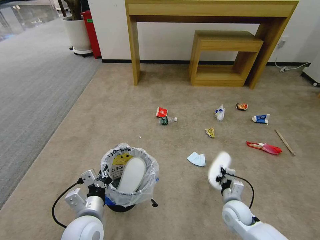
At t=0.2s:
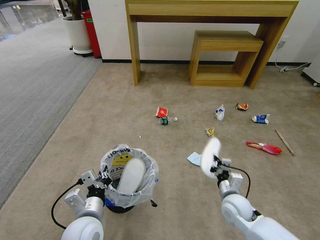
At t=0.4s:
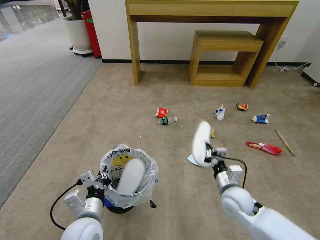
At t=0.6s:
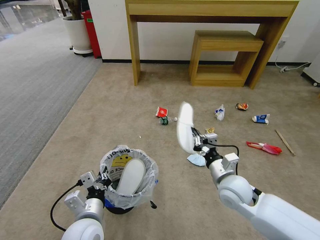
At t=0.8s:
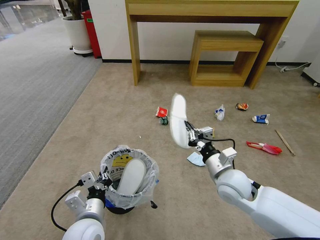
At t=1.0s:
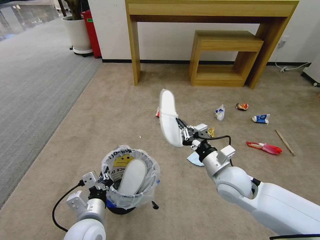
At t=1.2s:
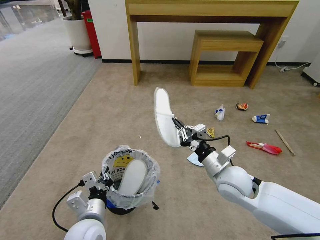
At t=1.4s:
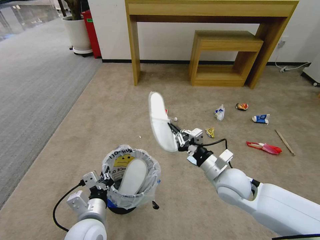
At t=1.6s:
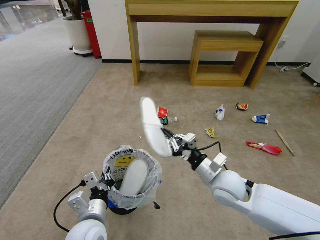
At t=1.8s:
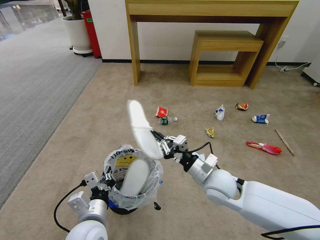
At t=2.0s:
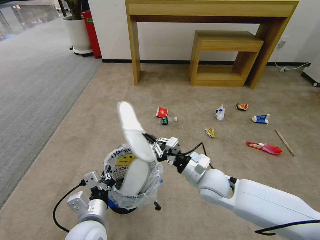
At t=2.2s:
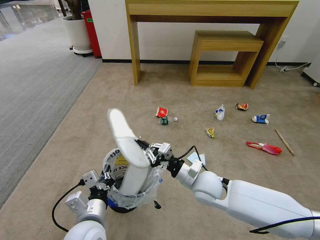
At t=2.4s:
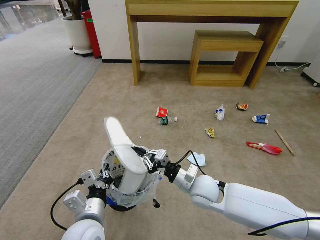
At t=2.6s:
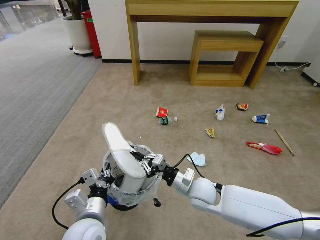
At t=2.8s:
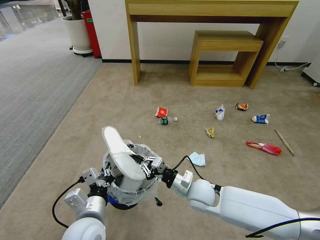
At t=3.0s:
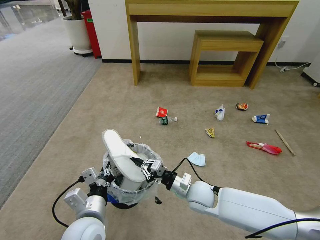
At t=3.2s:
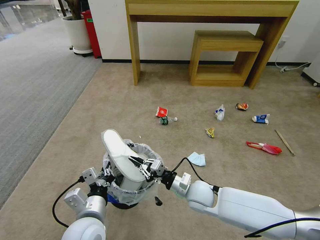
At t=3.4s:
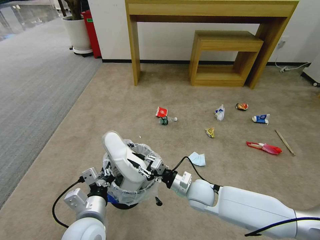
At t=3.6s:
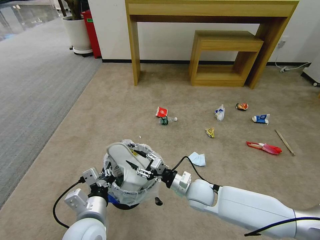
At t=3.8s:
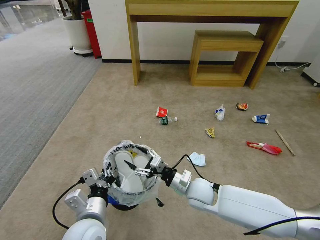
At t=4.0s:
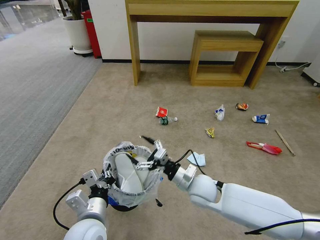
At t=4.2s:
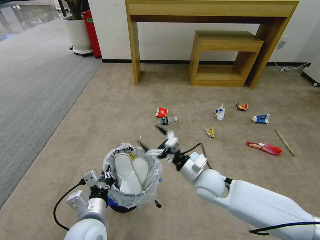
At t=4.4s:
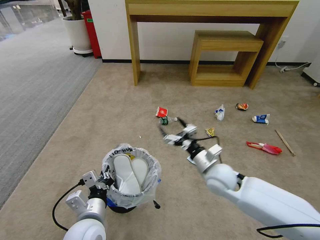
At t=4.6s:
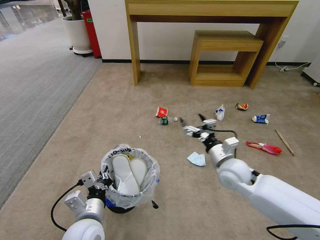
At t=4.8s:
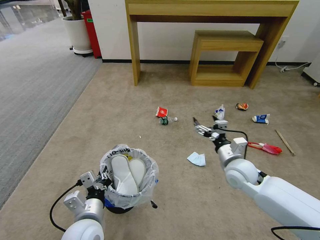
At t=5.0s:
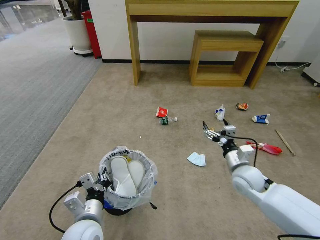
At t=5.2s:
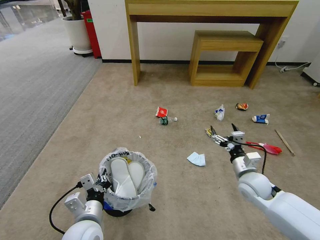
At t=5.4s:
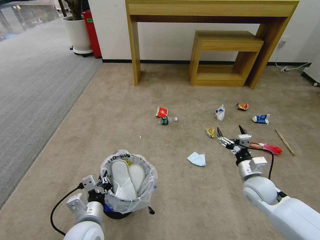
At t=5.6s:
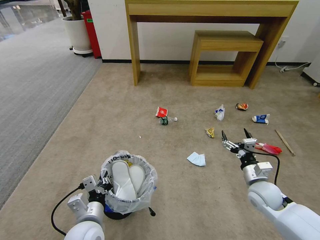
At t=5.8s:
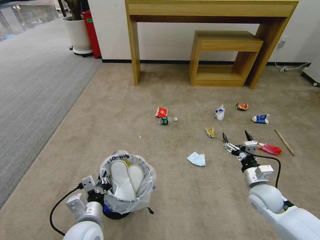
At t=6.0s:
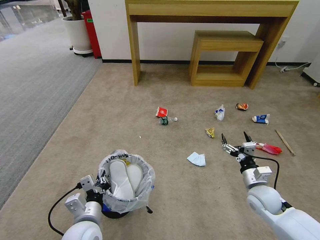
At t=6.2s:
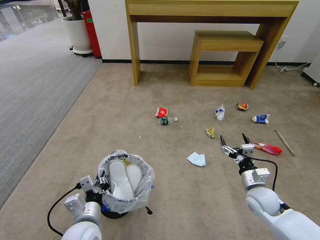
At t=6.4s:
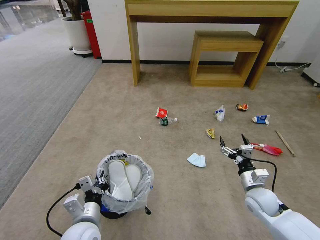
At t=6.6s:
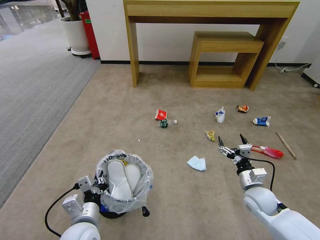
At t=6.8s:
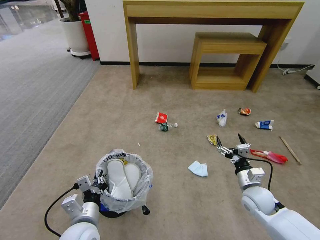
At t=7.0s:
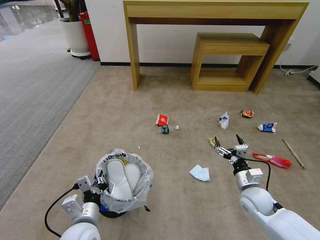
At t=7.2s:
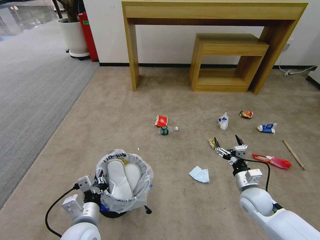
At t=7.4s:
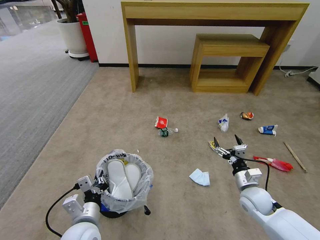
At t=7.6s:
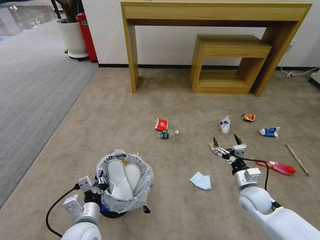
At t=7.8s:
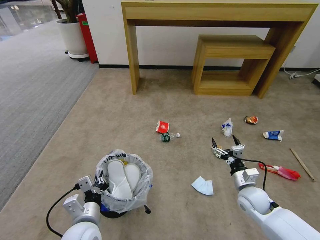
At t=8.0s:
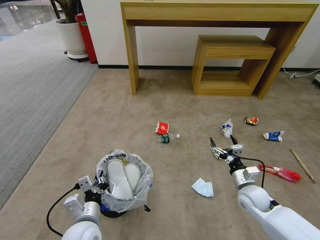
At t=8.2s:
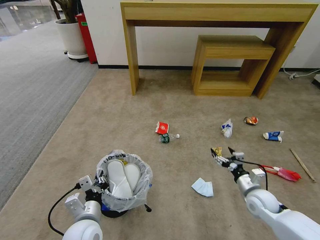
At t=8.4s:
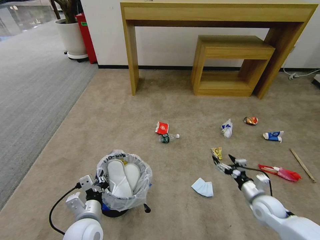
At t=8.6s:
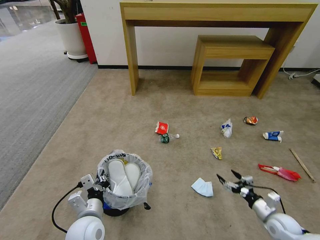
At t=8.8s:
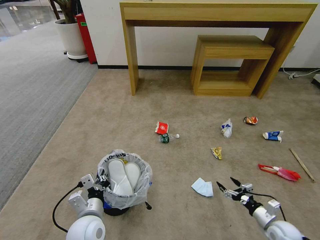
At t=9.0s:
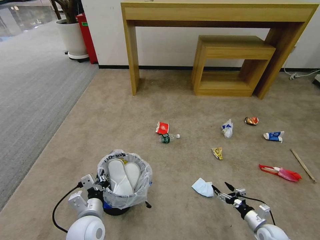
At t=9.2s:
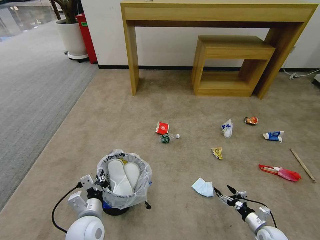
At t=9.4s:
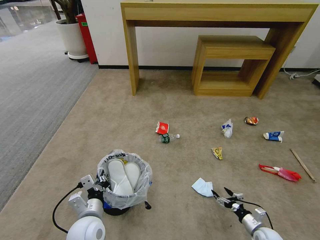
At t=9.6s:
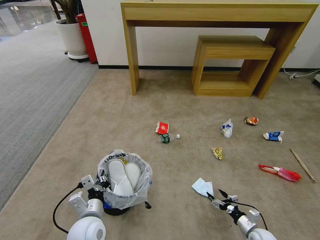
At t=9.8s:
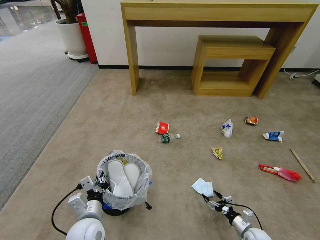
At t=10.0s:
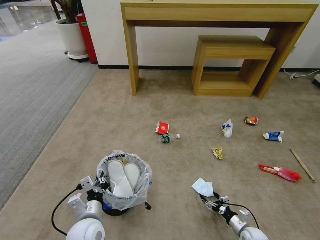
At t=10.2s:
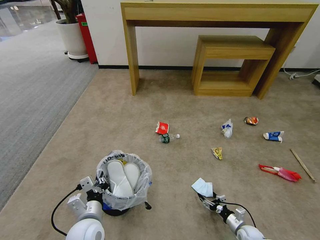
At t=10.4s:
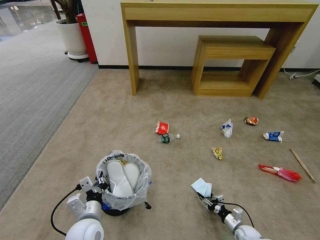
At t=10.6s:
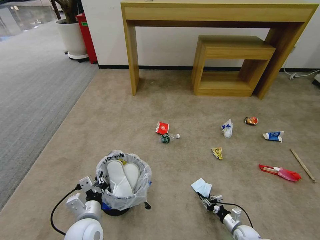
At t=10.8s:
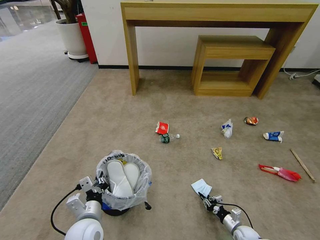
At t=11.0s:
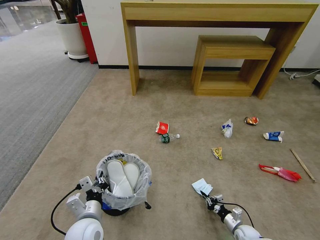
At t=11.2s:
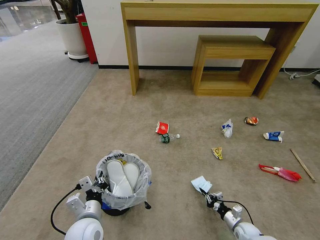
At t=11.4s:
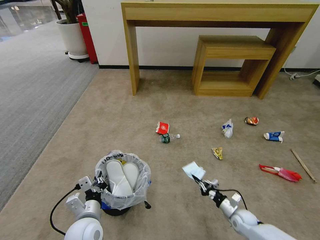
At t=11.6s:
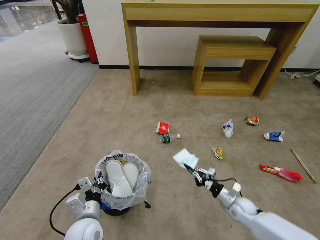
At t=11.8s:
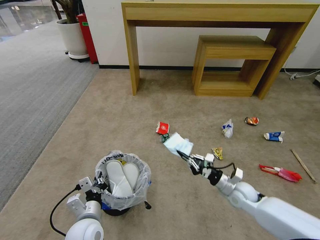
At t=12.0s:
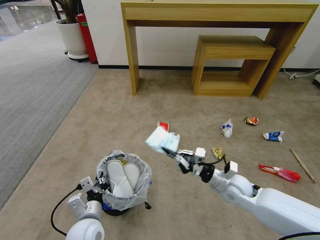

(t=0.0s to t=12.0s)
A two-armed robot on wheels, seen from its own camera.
Task of the whole recording: Pick up the trash bin and place the garbage on the floor into it.
t=0.0s - t=1.6s: The right gripper is displaced upward and to the left by some 20 cm.
t=1.6s - t=3.0s: The right gripper is displaced downward and to the left by approximately 10 cm.
t=3.0s - t=4.4s: The right gripper is displaced upward and to the right by some 10 cm, and opens.
t=4.4s - t=6.0s: The right gripper heads to the right and downward, covering approximately 15 cm.
t=7.6s - t=9.0s: The right gripper goes roughly 20 cm downward, to the right and backward.
t=9.0s - t=10.4s: The right gripper heads downward and to the left, covering some 10 cm, and closes.
t=10.4s - t=12.0s: The right gripper is displaced upward and to the left by approximately 30 cm, and closes its fingers.

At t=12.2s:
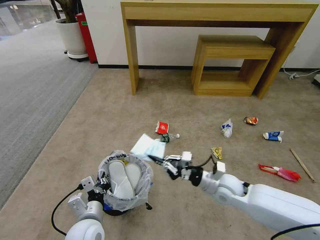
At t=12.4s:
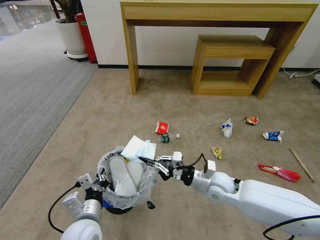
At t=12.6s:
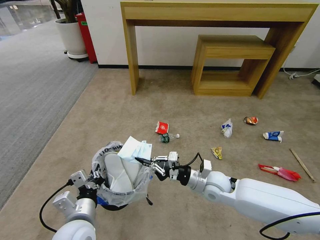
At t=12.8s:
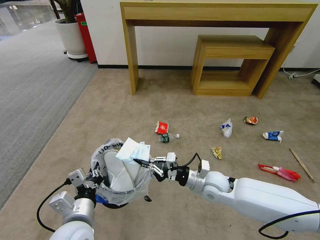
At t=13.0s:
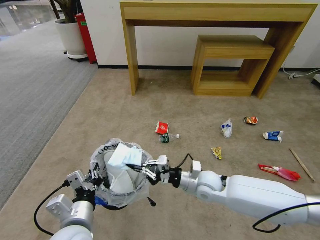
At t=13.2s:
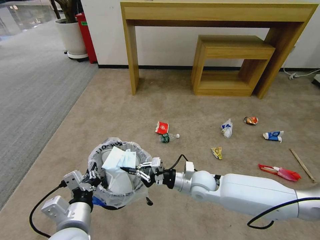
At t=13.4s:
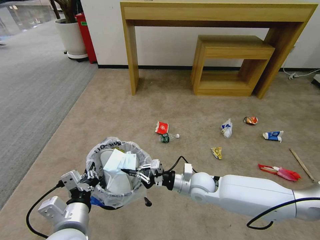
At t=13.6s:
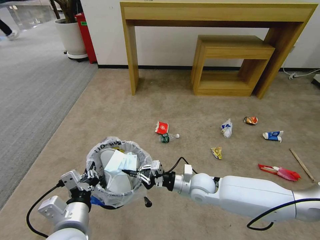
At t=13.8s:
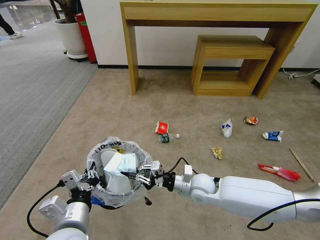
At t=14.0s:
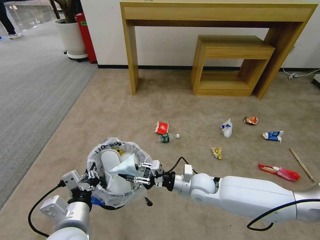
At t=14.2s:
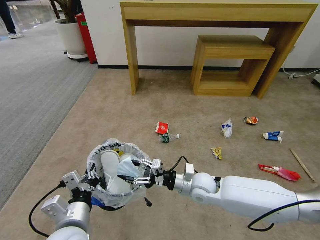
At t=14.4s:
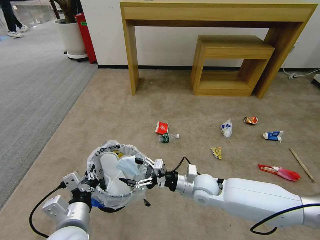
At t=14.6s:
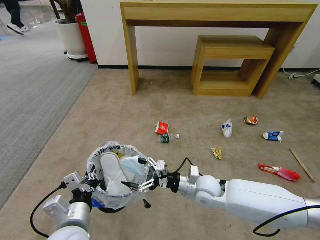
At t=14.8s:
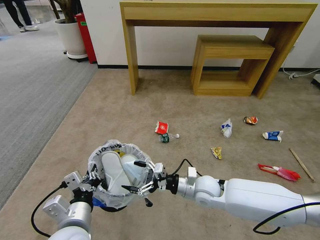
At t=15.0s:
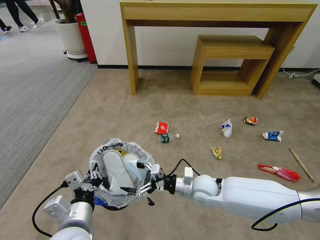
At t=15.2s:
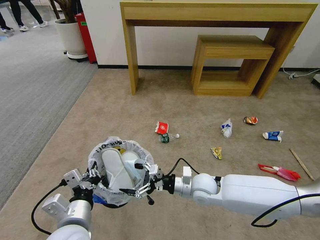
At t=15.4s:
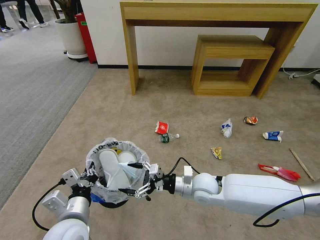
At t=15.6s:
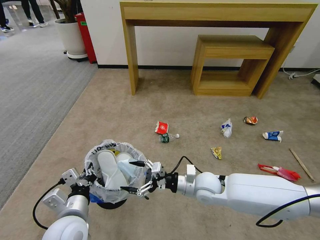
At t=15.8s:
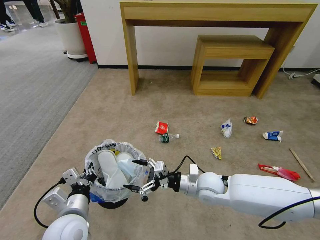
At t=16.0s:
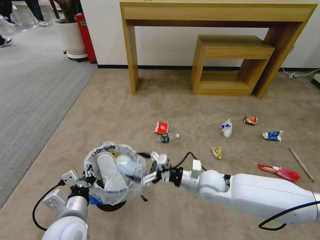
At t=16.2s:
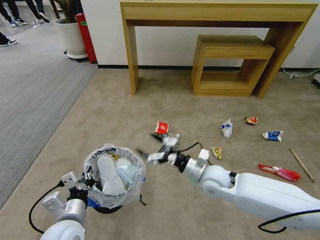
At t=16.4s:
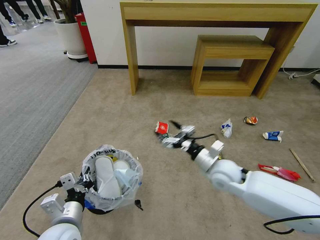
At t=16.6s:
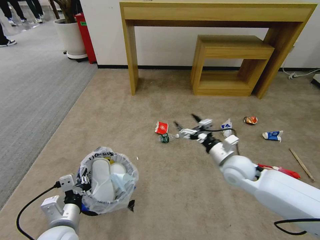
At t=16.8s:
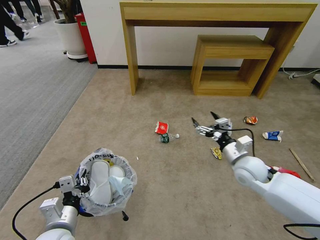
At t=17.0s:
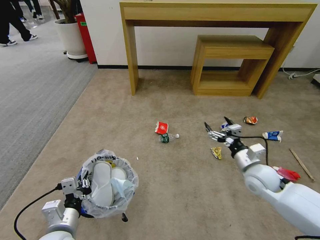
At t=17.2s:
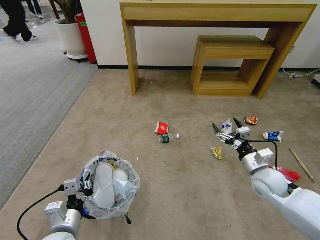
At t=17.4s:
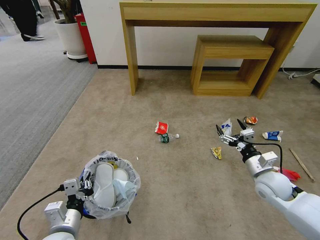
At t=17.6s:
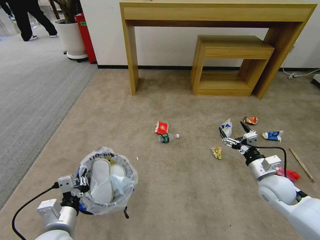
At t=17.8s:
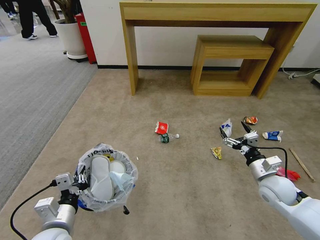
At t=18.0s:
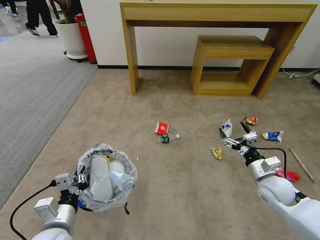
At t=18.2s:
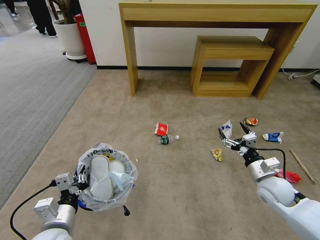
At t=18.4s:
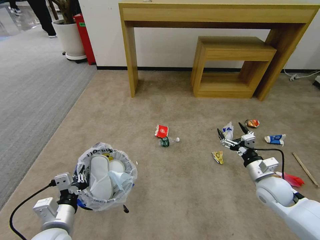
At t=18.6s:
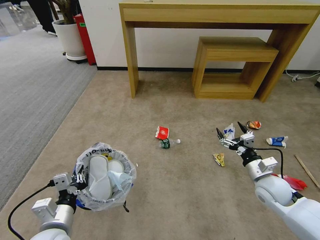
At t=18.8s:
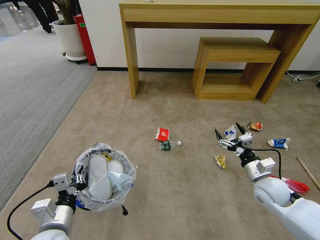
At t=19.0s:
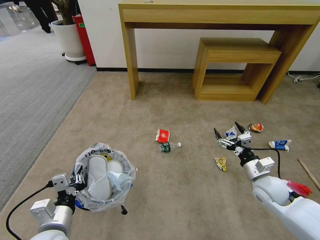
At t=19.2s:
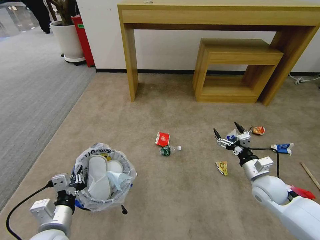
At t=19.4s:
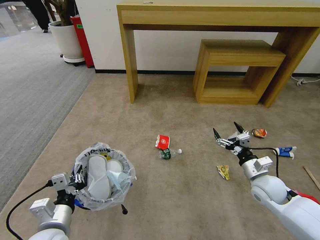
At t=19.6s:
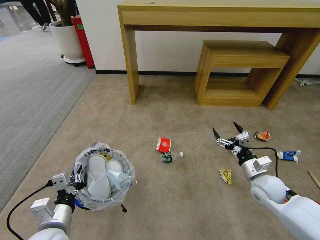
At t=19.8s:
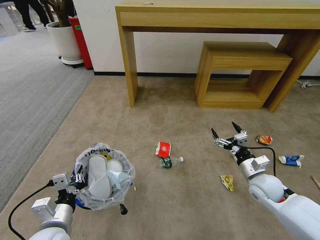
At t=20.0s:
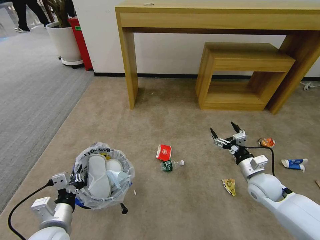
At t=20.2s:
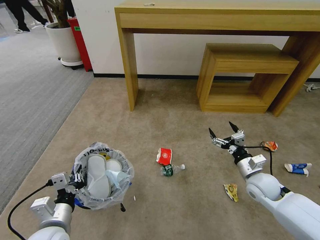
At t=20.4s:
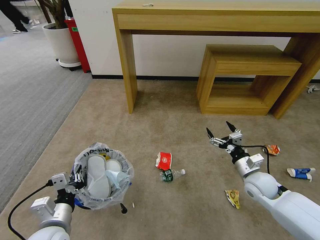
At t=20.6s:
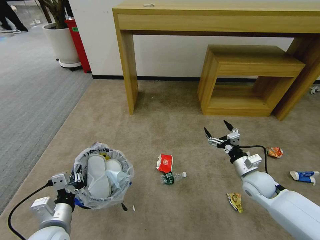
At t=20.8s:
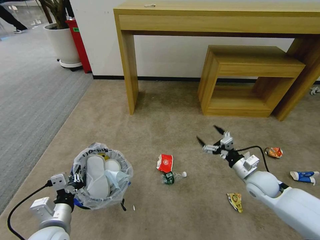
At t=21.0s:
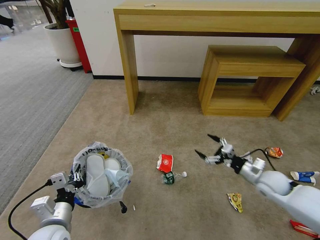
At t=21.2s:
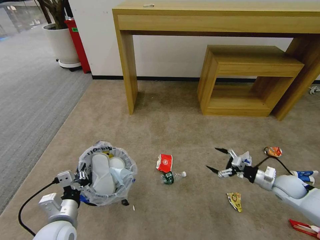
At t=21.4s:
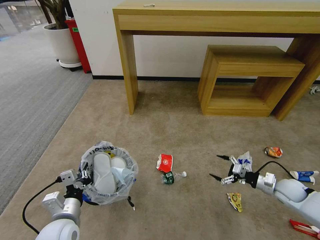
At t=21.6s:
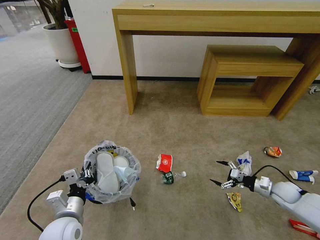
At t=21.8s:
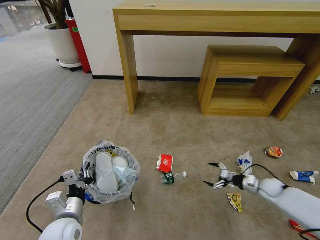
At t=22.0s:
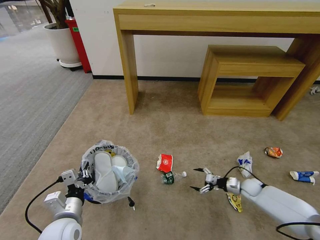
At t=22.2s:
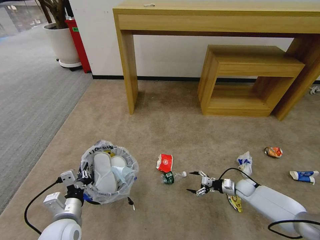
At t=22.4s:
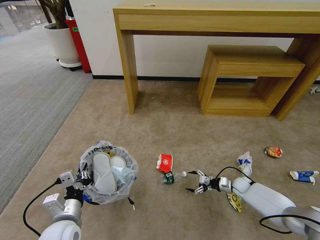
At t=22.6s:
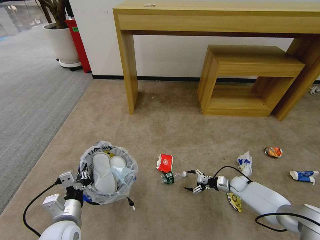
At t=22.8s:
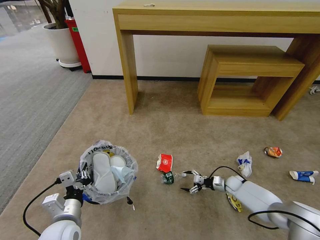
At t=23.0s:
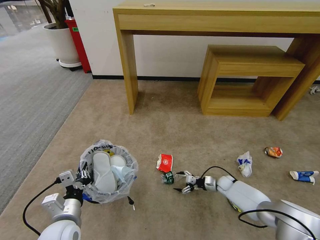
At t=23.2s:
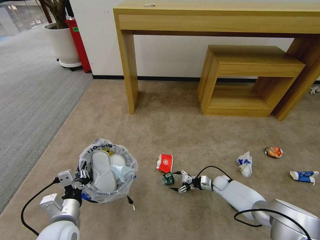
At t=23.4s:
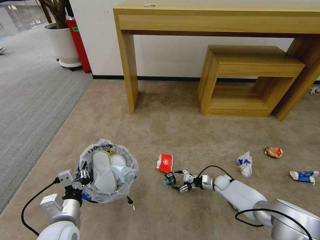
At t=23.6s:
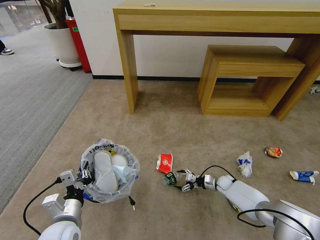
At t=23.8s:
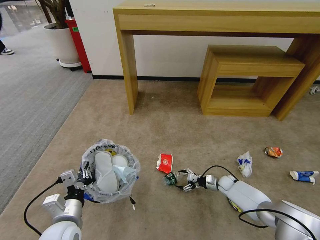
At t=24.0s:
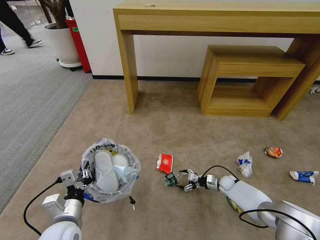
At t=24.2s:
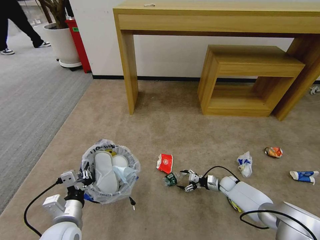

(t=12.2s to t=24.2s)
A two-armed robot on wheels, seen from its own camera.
Task of the whole recording: Pick up the trash bin and place the garbage on the floor into it.
t=12.2s - t=13.8s: The right gripper is displaced to the left by approximately 10 cm; the left gripper is displaced upward by some 10 cm.
t=13.8s - t=15.2s: The right gripper opens its fingers.
t=15.2s - t=16.6s: The right gripper travels to the right and upward by roughly 15 cm; the left gripper shifts roughly 5 cm to the left.
t=16.6s - t=18.2s: The right gripper goes some 15 cm to the right, downward and backward.
t=19.8s - t=21.2s: The right gripper is displaced to the right by approximately 10 cm.
t=21.2s - t=22.6s: The right gripper travels downward and forward by approximately 20 cm.
